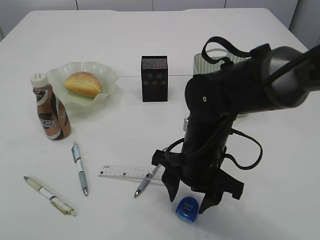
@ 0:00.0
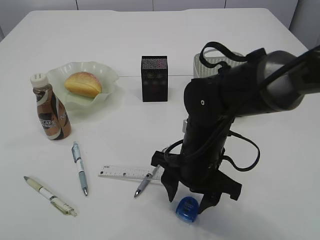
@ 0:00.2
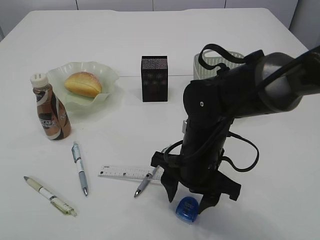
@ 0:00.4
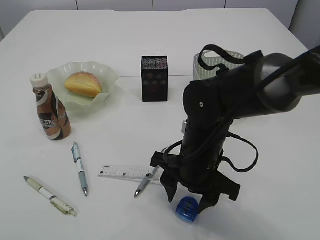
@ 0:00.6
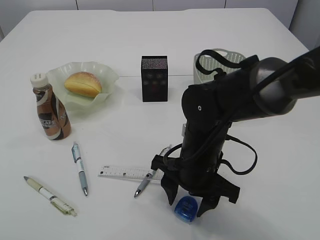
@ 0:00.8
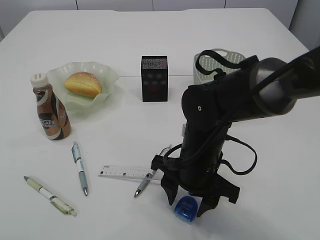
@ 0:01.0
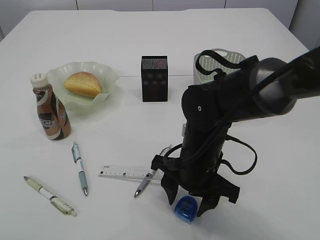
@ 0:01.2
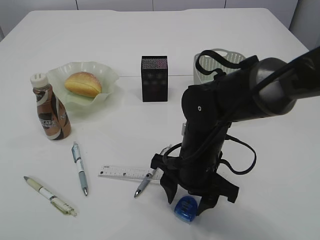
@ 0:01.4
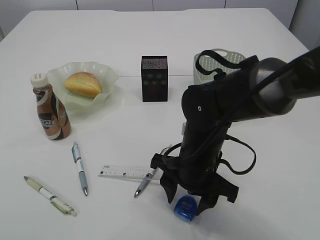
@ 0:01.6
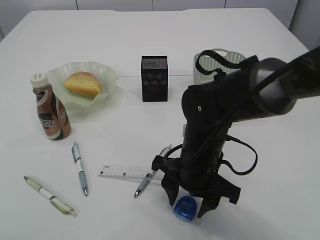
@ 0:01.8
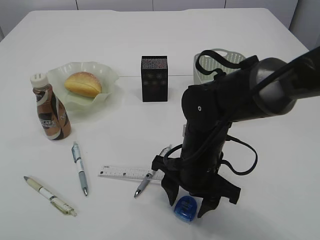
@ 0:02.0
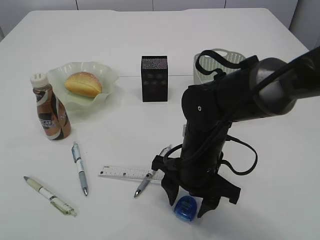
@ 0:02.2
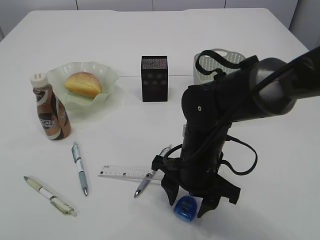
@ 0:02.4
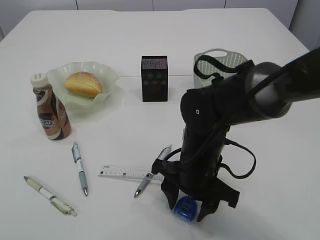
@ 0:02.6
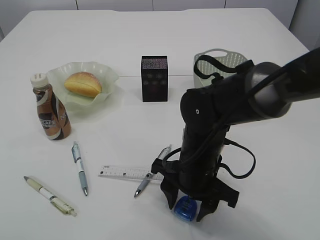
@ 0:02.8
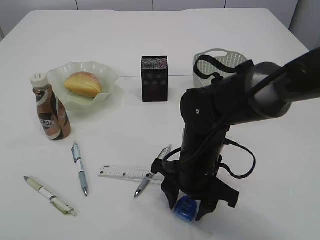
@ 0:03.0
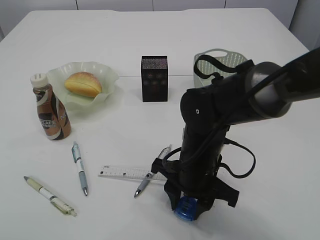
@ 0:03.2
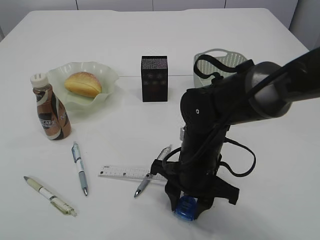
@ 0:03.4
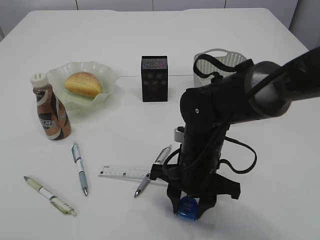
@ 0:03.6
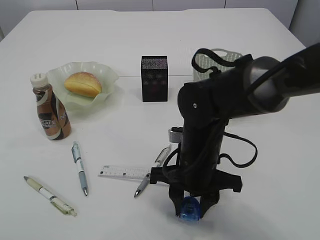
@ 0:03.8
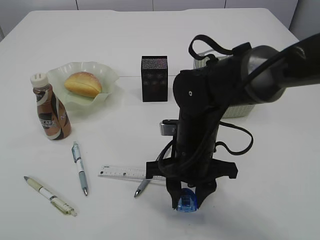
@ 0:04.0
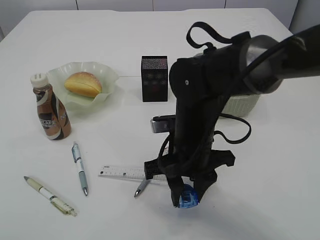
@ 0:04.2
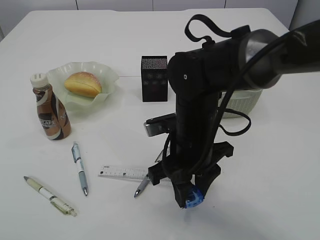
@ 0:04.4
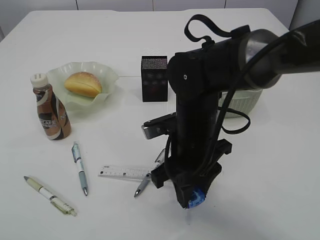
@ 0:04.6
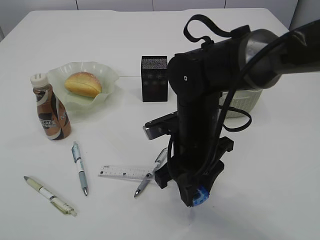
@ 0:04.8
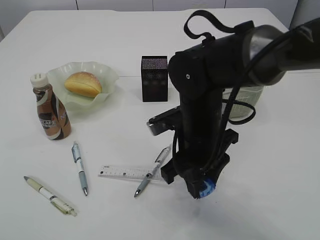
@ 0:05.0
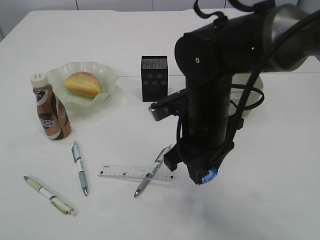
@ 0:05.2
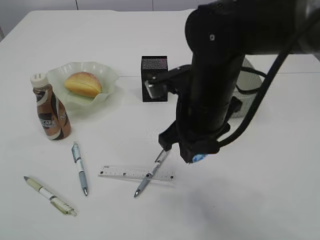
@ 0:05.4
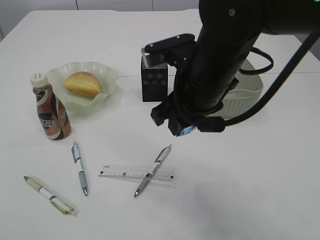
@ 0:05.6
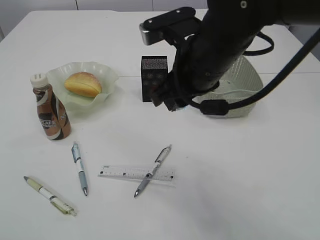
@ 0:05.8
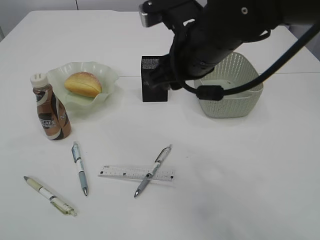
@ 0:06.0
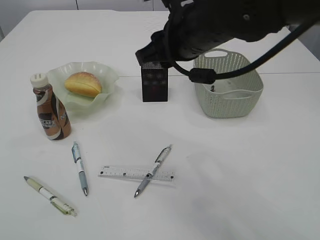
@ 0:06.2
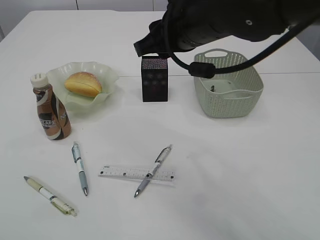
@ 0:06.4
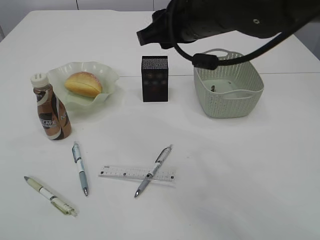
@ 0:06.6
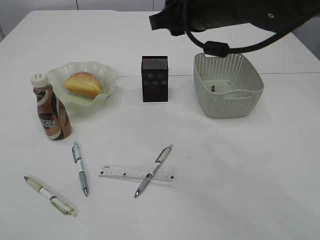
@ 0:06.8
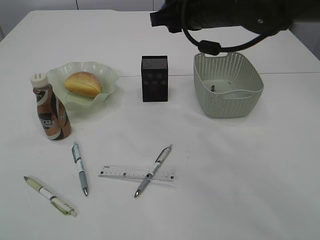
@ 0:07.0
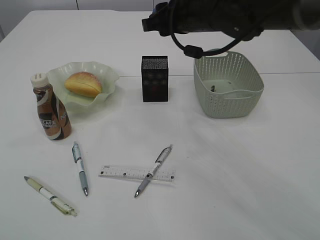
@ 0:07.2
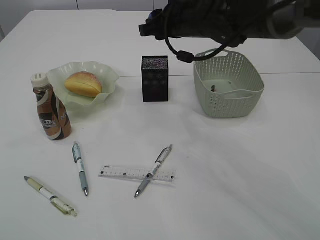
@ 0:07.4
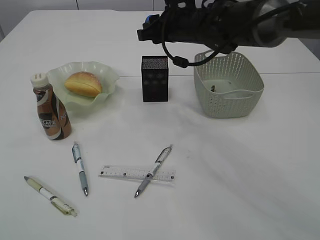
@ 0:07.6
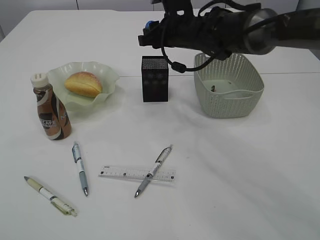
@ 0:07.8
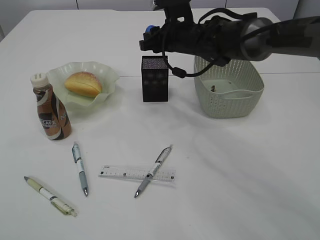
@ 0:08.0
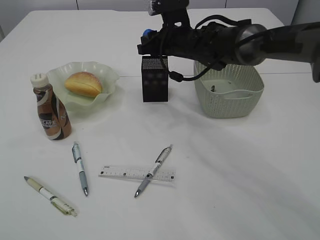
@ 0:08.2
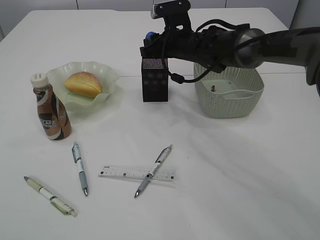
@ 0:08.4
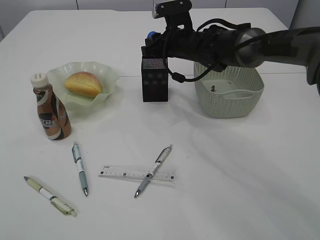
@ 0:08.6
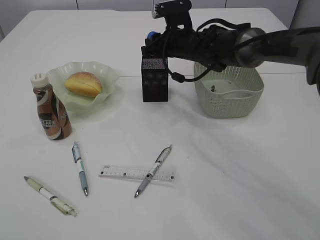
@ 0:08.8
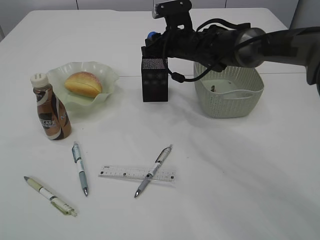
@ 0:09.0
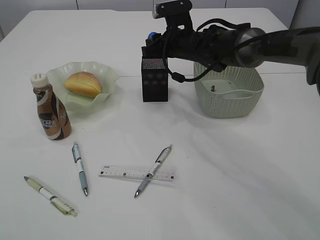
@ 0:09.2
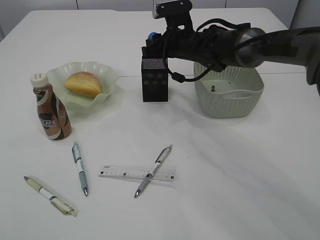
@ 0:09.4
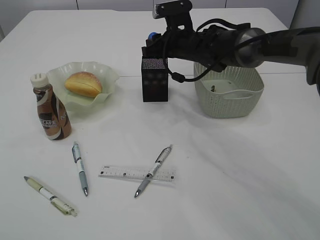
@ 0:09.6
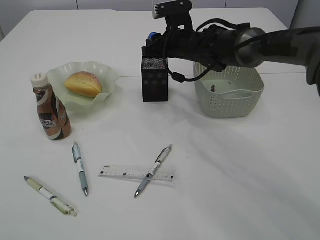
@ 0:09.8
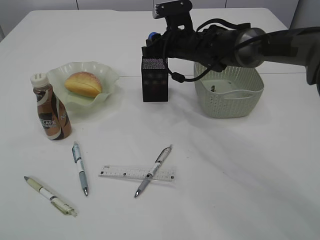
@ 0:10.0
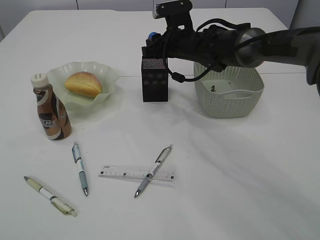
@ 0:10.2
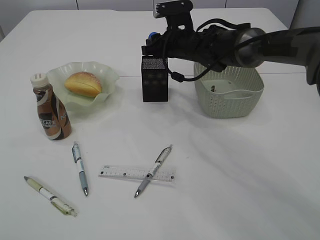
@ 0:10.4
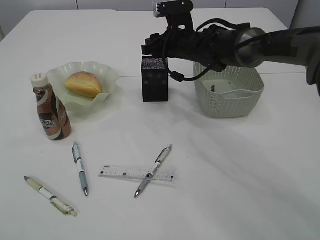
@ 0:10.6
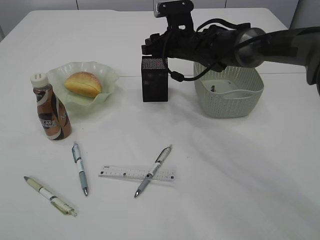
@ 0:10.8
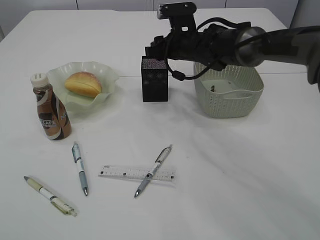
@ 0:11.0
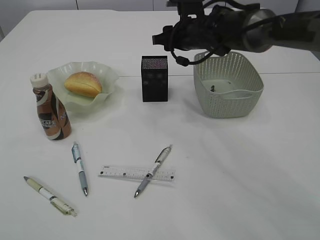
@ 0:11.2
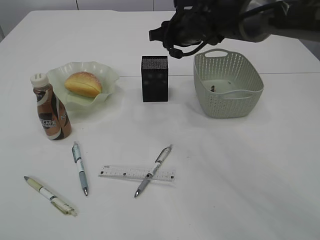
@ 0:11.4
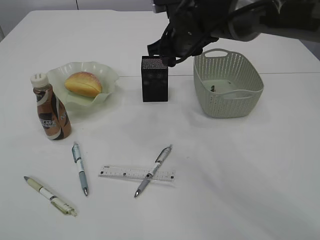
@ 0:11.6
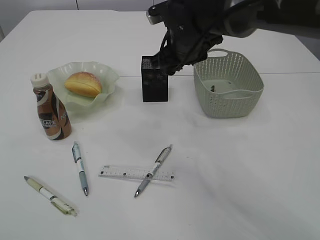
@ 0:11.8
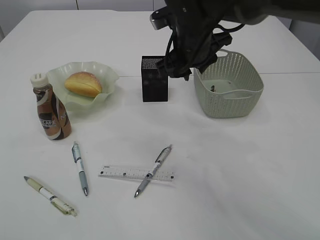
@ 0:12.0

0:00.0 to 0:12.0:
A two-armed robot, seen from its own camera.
Step, 0:00.0 to 0:04.4: Pick up the blue pencil sharpener.
Step, 0:04.6 to 0:11.4: Place the blue pencil sharpener into the pen holder.
0:00.0 to 0:01.6: The grippers stay close to where they were, moving slightly.
0:01.6 to 0:03.0: Both grippers stay put.
0:04.4 to 0:06.0: The right gripper moves upward, some 10 cm.
0:06.0 to 0:07.6: The right gripper heads forward, covering approximately 15 cm.
0:07.6 to 0:09.0: The right gripper is displaced downward by roughly 5 cm.
0:09.0 to 0:10.4: The two grippers keep their place.
0:10.4 to 0:12.0: The right gripper moves backward and upward, about 10 cm.

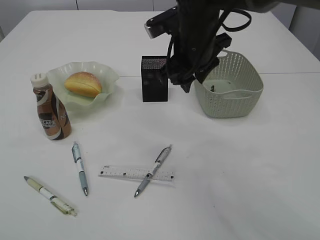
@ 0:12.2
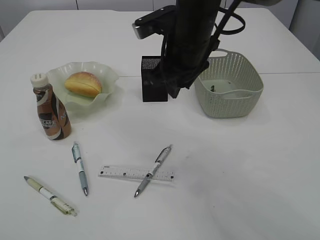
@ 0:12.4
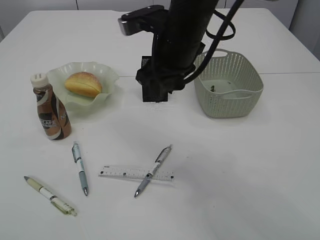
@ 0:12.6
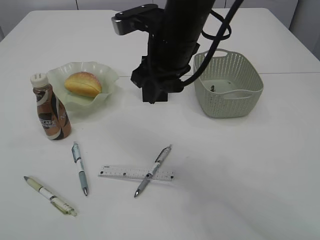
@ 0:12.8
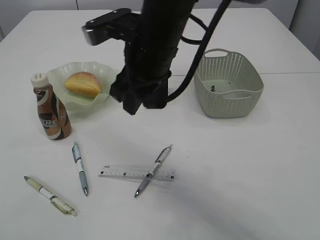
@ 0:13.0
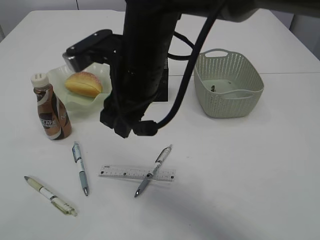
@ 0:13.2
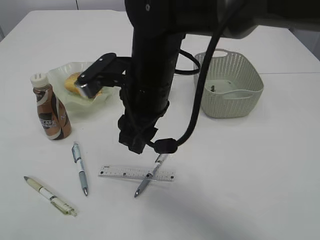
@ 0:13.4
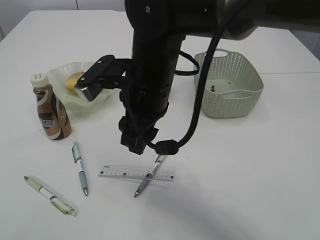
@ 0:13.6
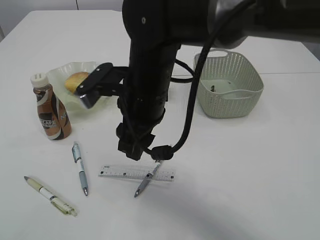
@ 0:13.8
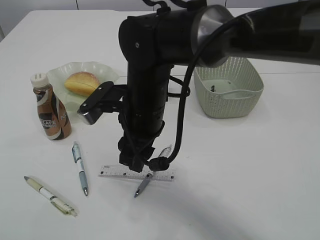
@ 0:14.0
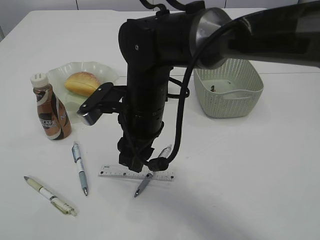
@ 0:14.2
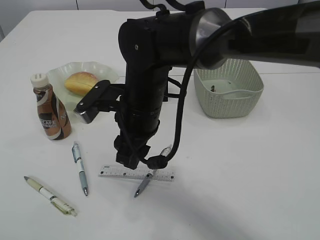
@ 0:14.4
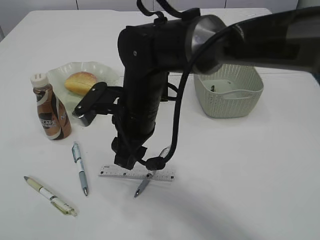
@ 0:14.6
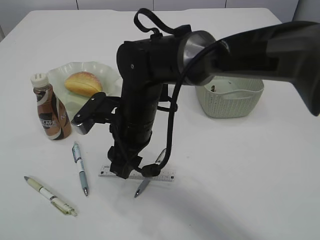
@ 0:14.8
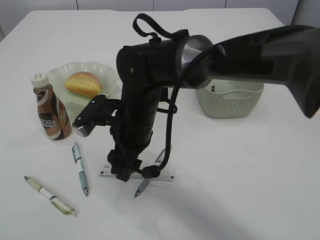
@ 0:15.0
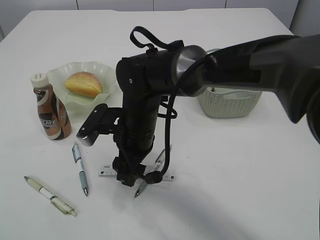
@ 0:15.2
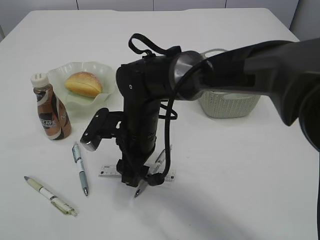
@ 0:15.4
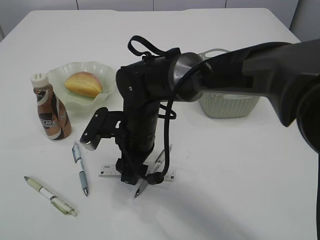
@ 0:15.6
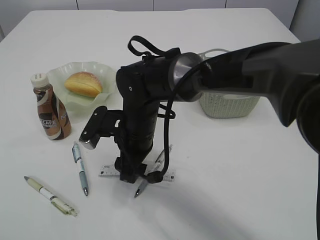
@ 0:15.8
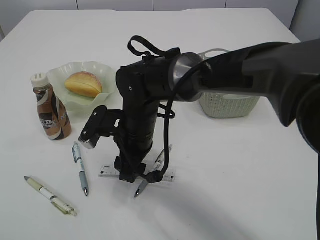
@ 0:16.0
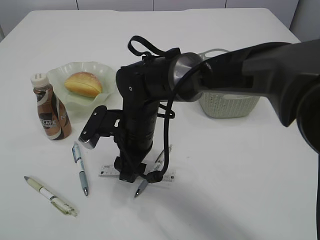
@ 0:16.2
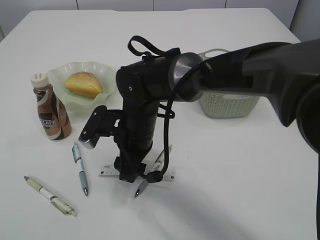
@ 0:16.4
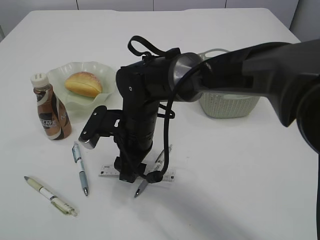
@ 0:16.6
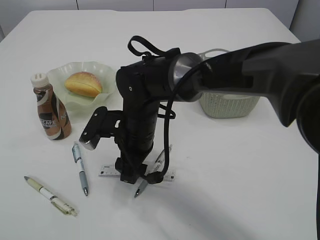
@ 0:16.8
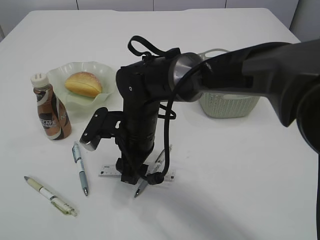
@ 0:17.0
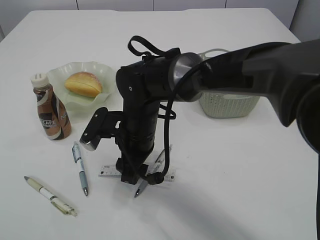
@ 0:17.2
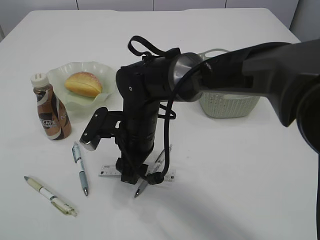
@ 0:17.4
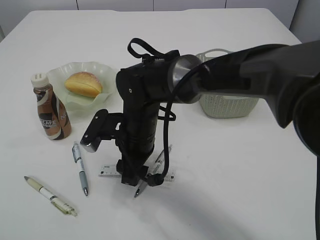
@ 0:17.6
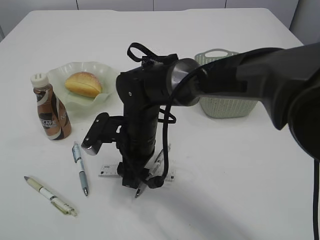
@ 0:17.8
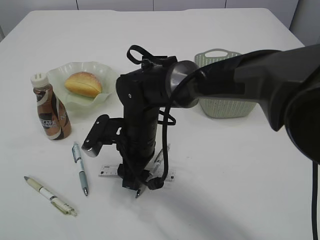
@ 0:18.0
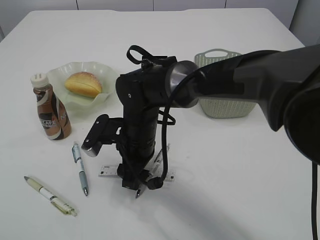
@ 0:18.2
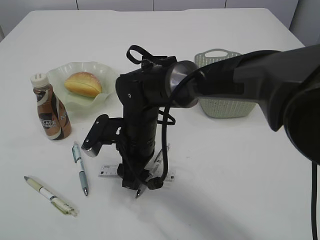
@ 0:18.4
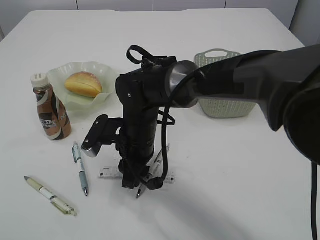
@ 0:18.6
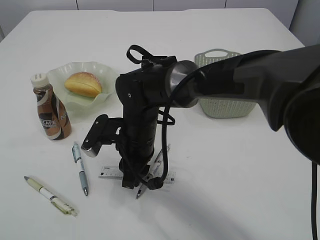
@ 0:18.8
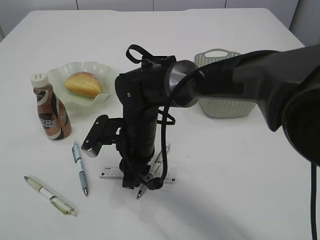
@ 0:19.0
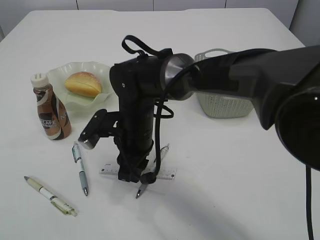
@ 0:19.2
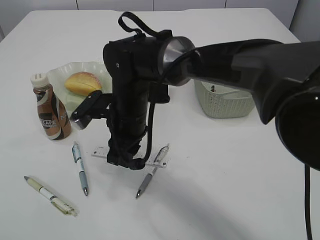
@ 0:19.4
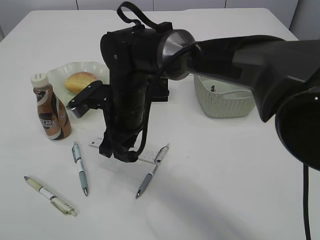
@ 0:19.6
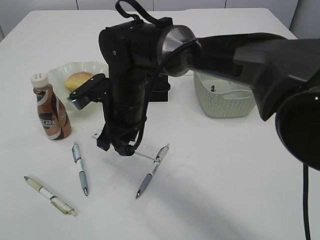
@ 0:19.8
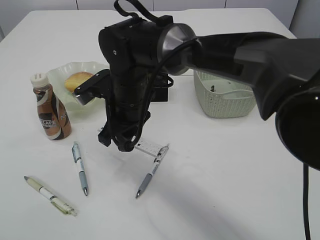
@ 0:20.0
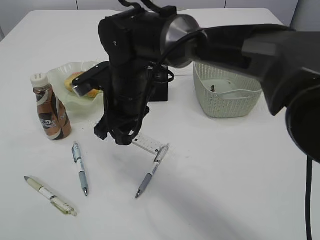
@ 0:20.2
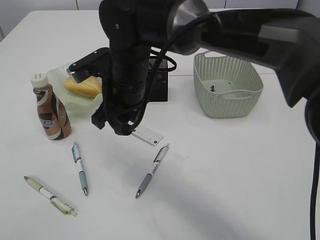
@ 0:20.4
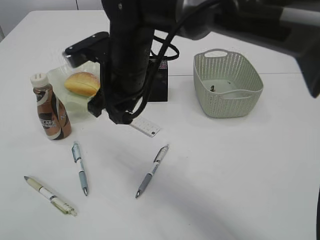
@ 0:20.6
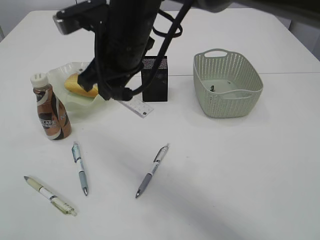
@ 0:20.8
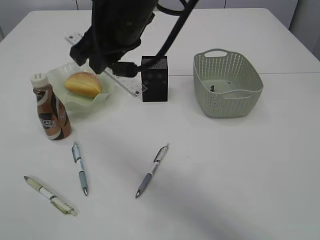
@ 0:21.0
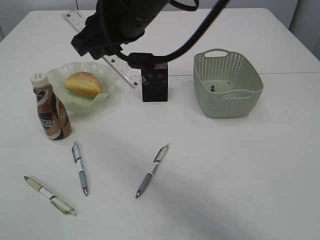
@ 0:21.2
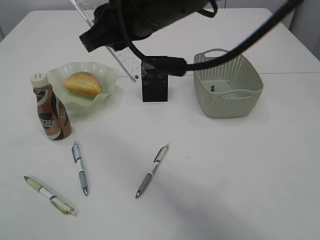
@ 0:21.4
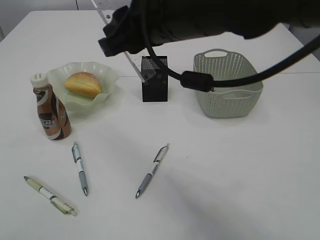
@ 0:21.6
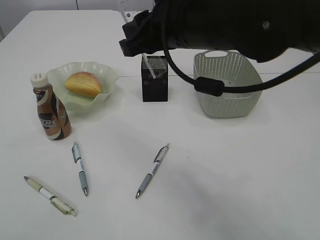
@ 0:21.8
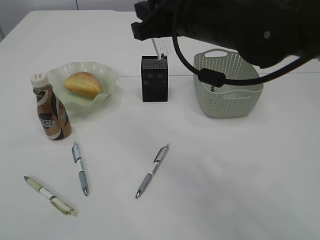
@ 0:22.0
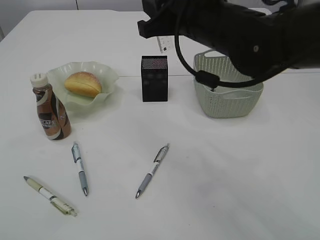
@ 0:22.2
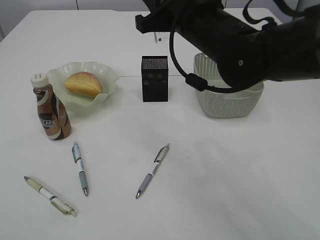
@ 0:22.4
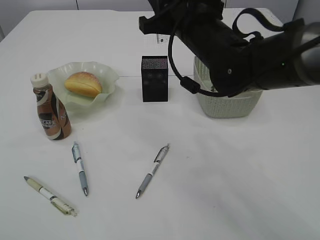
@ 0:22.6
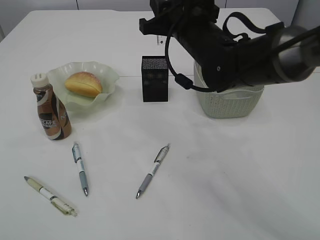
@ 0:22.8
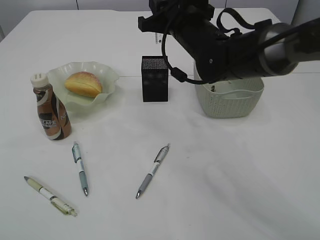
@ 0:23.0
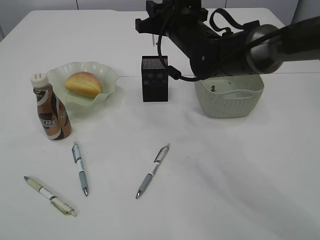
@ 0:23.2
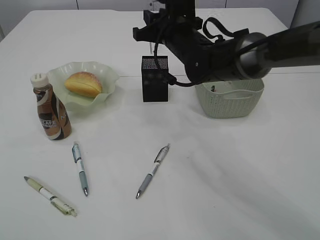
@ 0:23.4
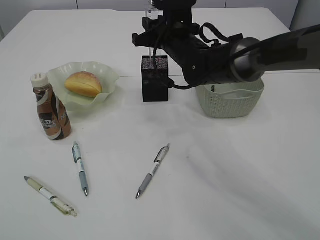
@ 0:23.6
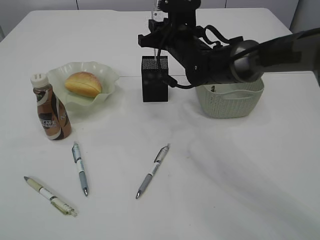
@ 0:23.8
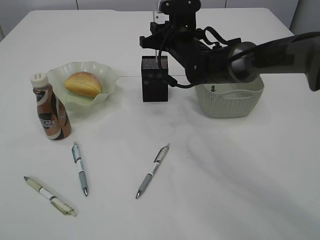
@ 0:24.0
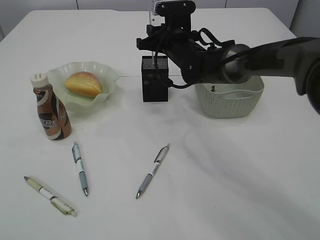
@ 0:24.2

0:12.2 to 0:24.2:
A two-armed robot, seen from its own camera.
Step, 0:12.2 to 0:19.8: pick up the ruler.
0:12.2 to 0:13.8: The right gripper is displaced to the left and backward by some 10 cm.
0:13.8 to 0:15.2: The right gripper travels downward by approximately 10 cm.
0:15.2 to 0:18.2: There are only small adjustments of the grippers.
0:18.2 to 0:19.8: The right gripper travels upward by roughly 5 cm, and closes up.
0:19.8 to 0:21.2: The right gripper moves upward, approximately 15 cm.
0:21.2 to 0:22.6: The right gripper heads to the right and downward, covering roughly 10 cm.
0:22.6 to 0:24.2: The right gripper shifts approximately 15 cm forward and downward.
